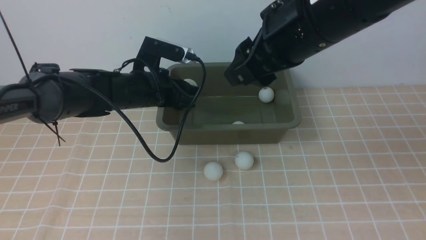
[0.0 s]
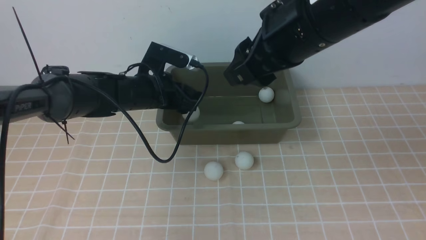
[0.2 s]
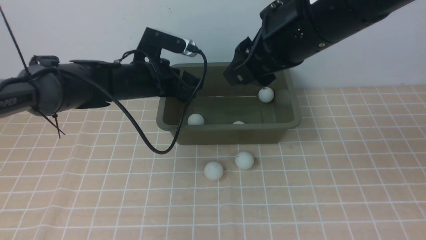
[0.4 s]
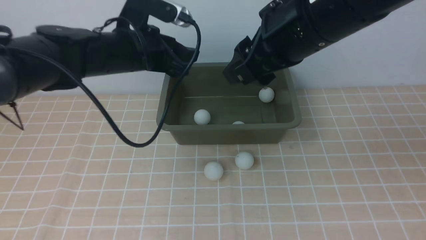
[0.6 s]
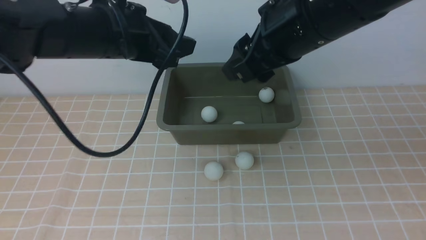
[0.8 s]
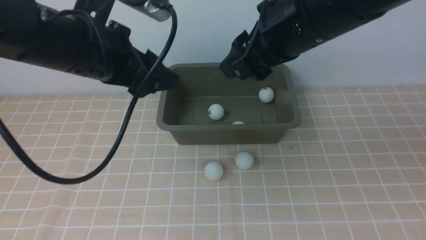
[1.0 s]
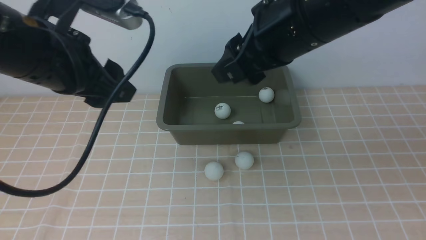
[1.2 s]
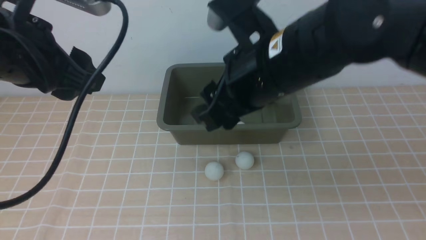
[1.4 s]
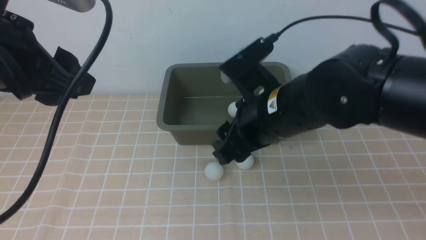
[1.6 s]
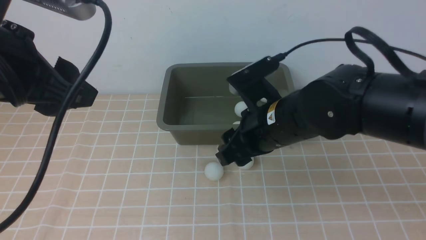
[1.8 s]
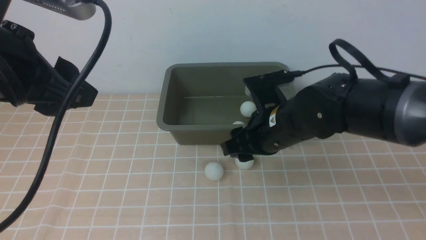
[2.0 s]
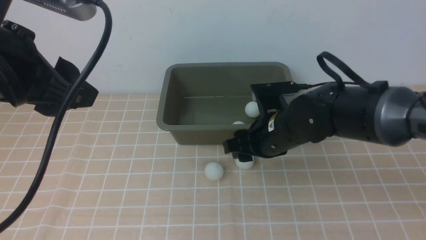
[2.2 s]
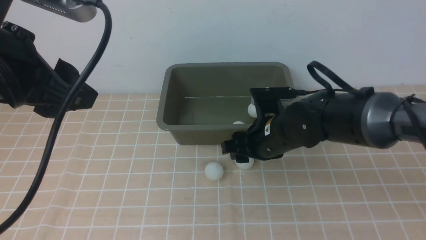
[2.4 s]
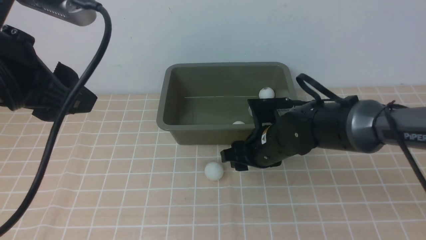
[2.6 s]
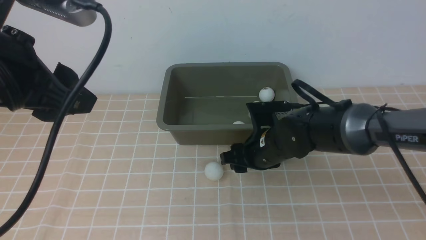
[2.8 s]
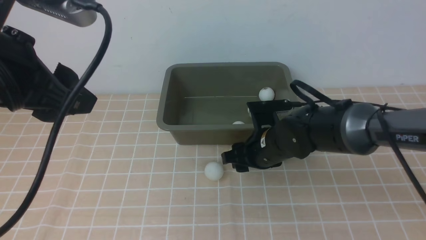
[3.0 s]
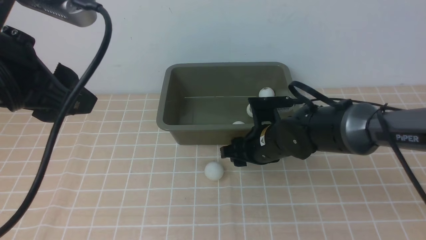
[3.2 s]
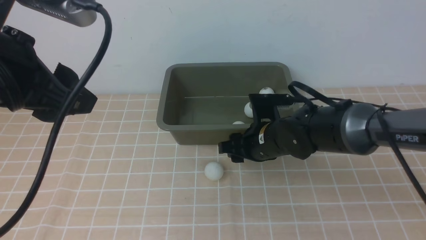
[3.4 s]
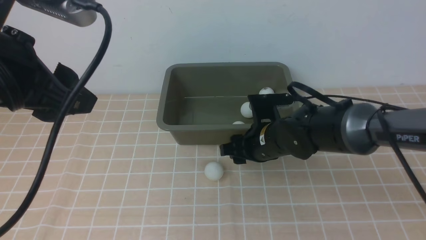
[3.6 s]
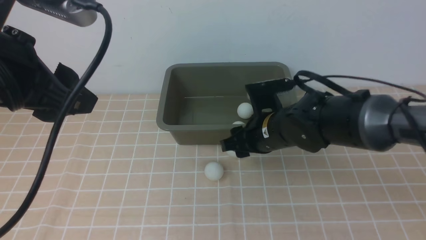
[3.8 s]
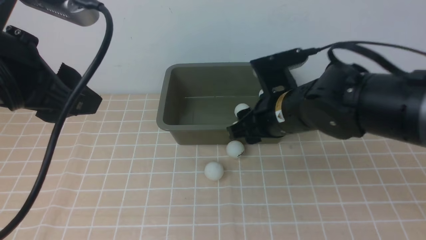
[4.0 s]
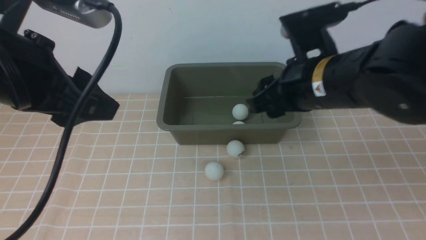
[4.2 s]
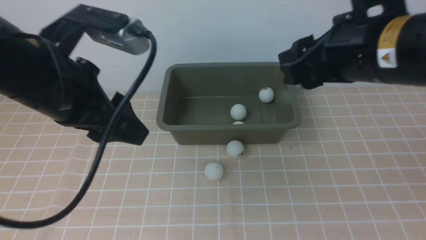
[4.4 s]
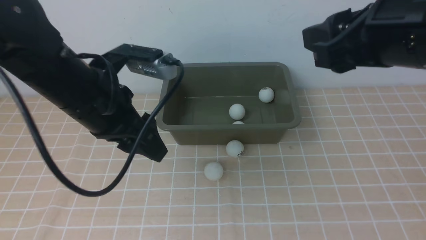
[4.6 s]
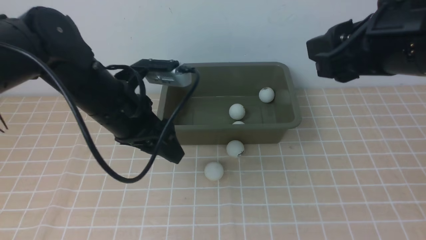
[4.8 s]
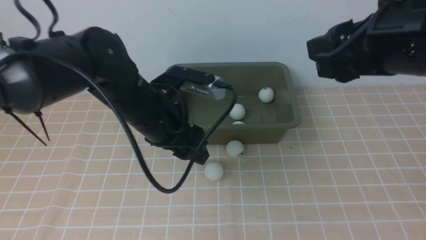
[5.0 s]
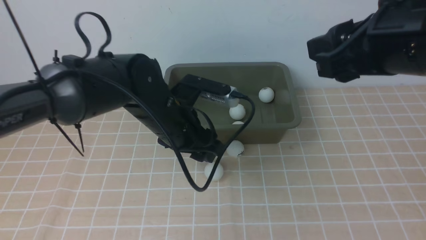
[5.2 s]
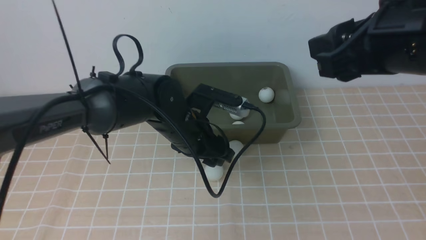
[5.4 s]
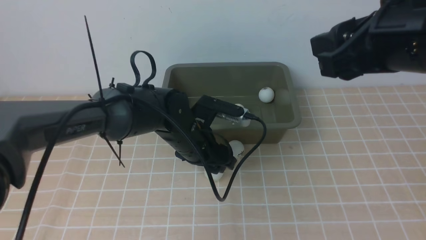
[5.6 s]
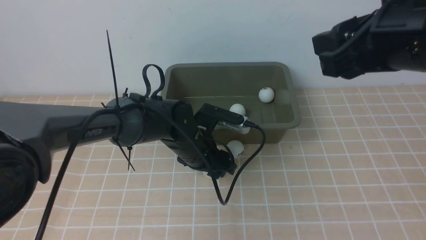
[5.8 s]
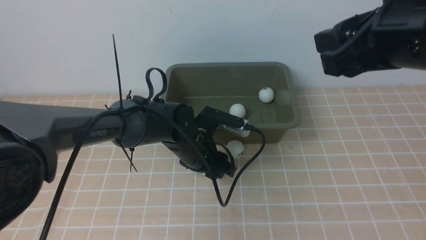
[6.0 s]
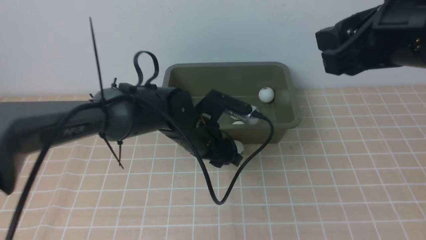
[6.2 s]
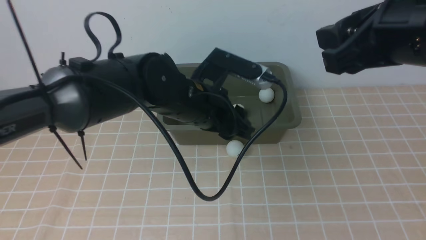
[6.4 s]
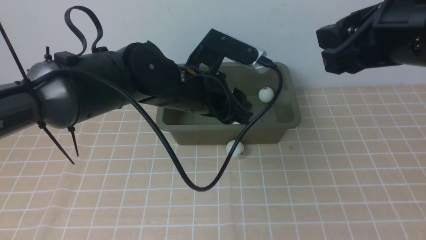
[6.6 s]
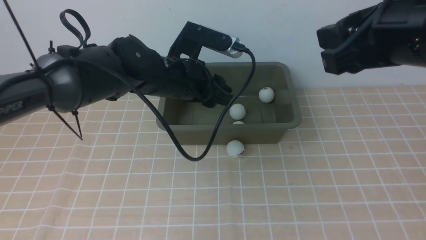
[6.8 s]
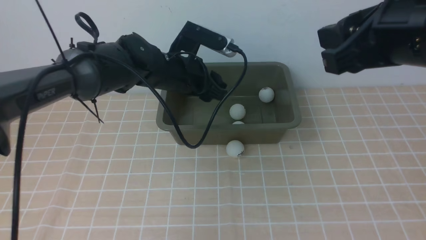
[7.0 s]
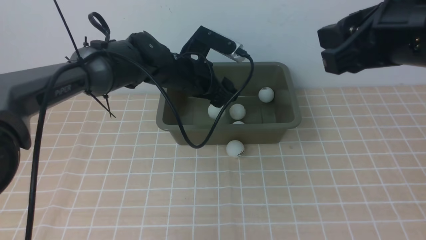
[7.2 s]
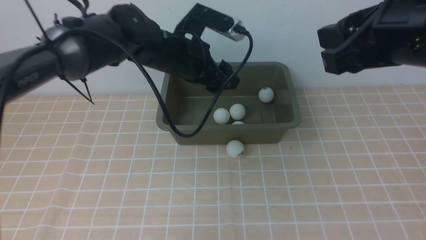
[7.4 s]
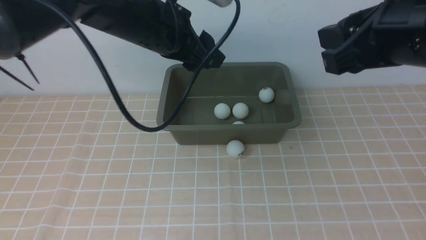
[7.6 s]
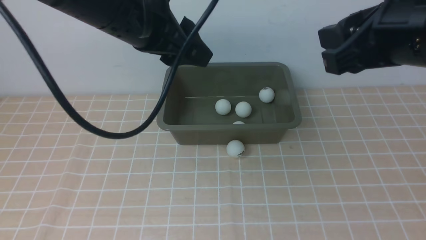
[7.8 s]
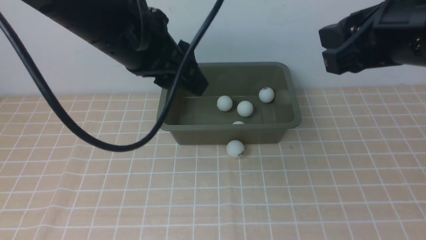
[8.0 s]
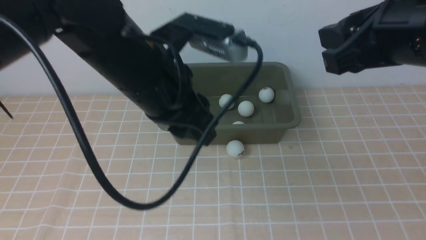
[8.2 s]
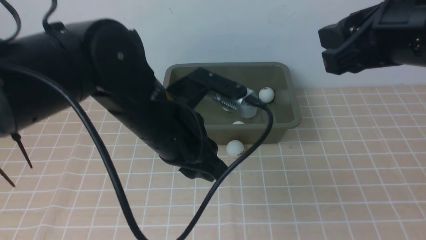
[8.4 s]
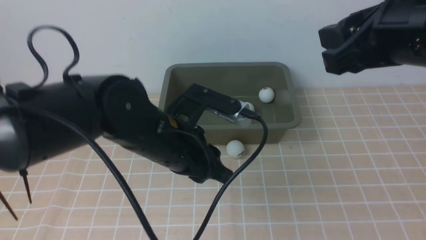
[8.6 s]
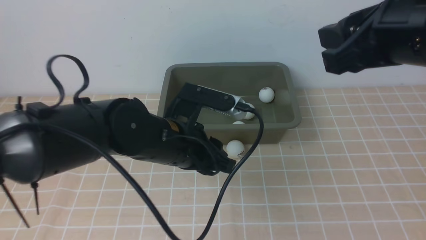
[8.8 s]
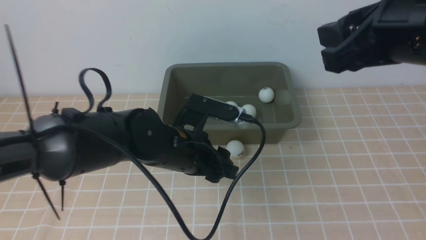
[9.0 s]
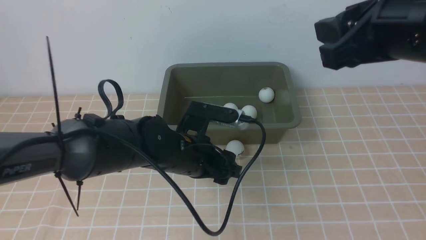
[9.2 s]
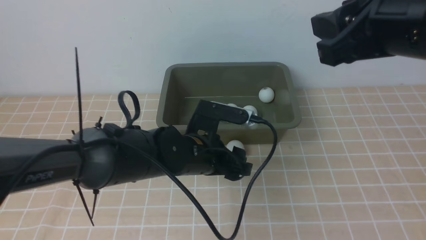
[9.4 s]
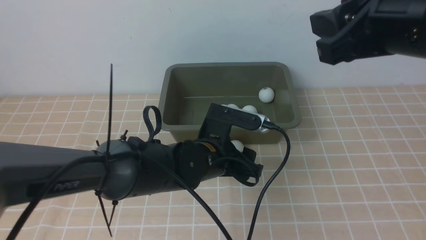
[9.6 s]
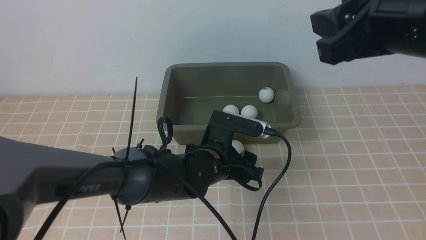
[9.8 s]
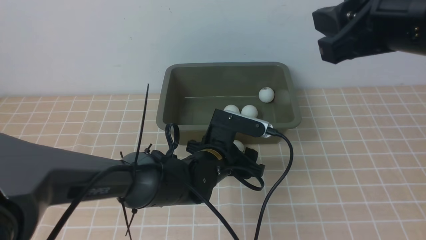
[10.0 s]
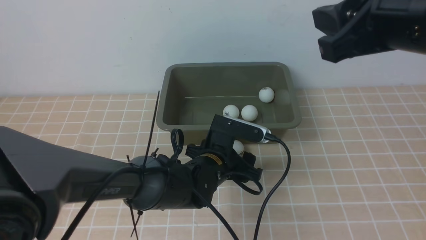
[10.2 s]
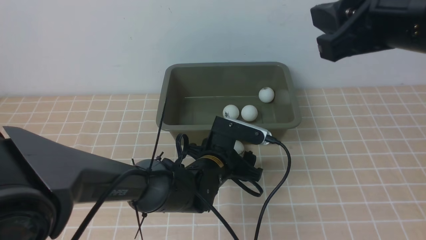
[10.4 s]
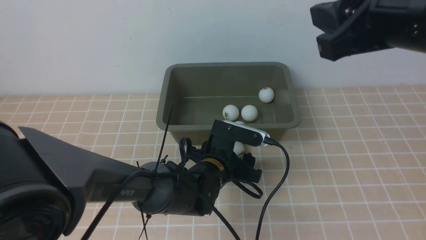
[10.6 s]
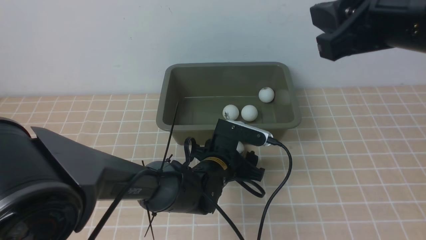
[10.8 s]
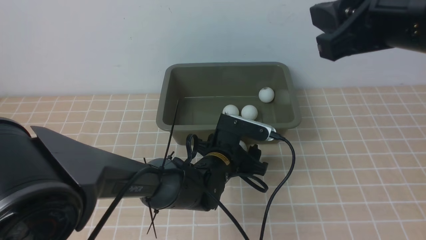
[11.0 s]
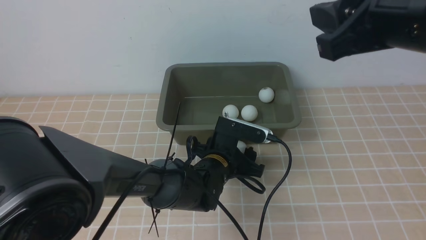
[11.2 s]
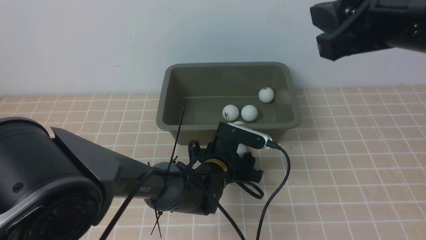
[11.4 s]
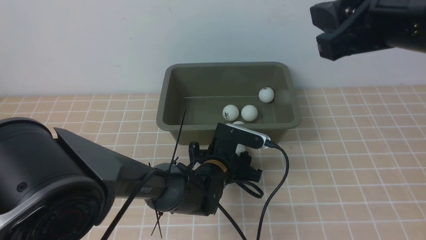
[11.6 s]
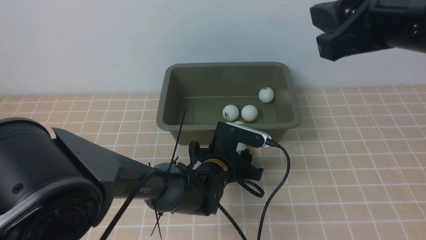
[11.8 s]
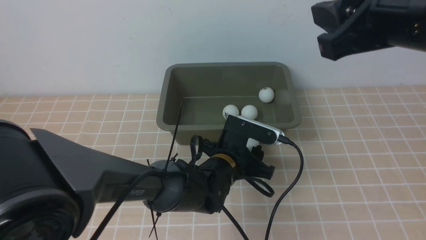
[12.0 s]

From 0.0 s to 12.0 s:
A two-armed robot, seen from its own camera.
Step, from 0.0 s to 0.6 s: use the left arm to put the table tennis ball into the box.
Step, from 0.8 s to 6.0 s: use the left arm to clamp the table tennis ball closest to it.
Step, from 6.4 s to 7.2 s: use the left arm to put the table tennis ball into the box.
From 0.0 s to 1.6 s: The left gripper moves upward and backward, about 25 cm, while the right gripper goes roughly 10 cm downward.
From 1.6 s to 3.0 s: The right gripper shifts some 15 cm downward and forward.
From 3.0 s to 4.4 s: The left gripper changes place by approximately 5 cm. Meanwhile the right gripper shifts about 25 cm upward and backward.
From 4.4 s to 6.0 s: The left gripper goes approximately 25 cm downward, to the right and forward.
From 6.0 s to 7.6 s: The left gripper is displaced upward by approximately 20 cm.
From 7.6 s to 9.0 s: The left gripper is displaced downward and backward by approximately 15 cm, and closes and opens again.
From 9.0 s to 10.4 s: The left gripper heads downward, covering some 10 cm, and opens its fingers.
From 10.4 s to 12.0 s: The left gripper closes.

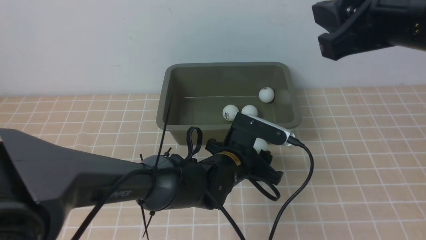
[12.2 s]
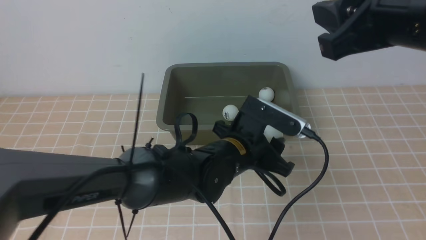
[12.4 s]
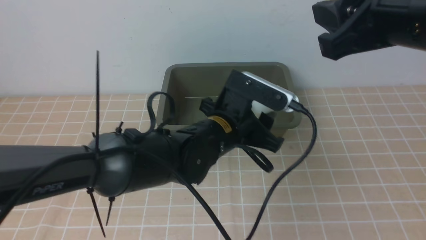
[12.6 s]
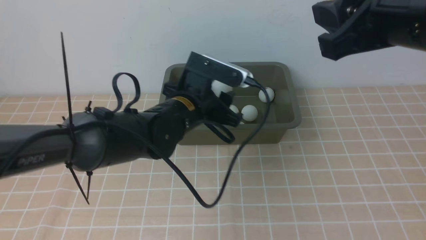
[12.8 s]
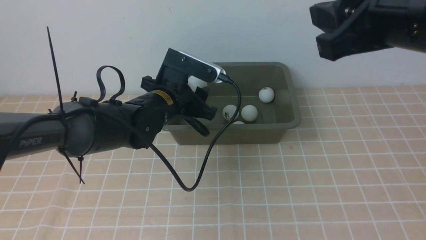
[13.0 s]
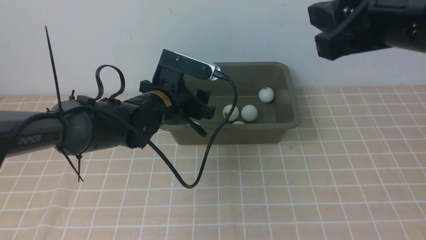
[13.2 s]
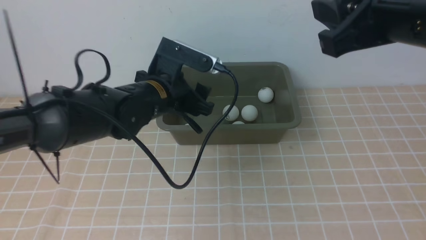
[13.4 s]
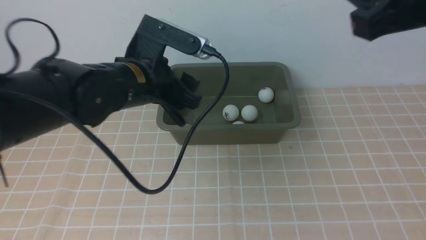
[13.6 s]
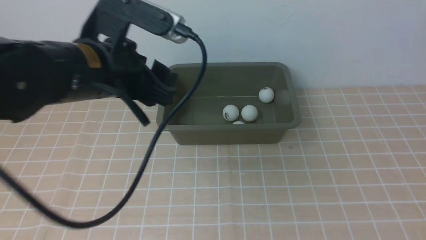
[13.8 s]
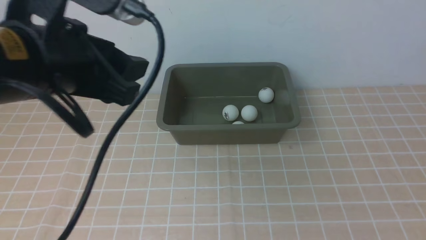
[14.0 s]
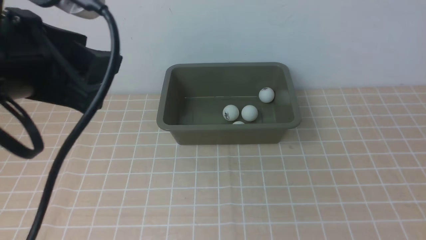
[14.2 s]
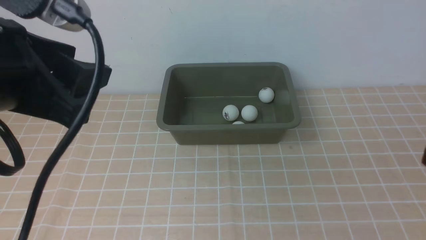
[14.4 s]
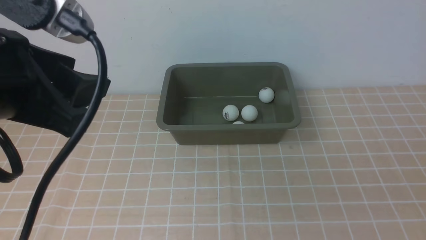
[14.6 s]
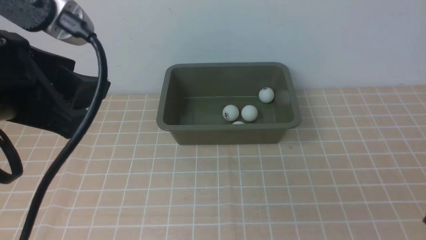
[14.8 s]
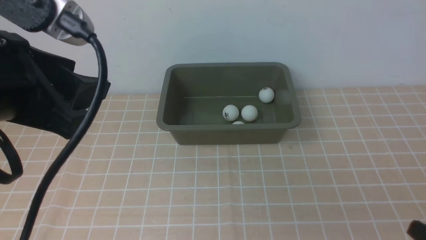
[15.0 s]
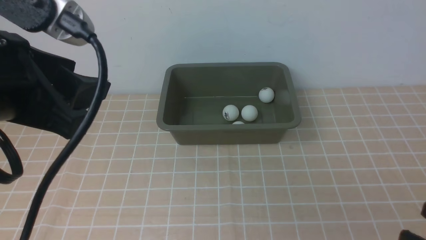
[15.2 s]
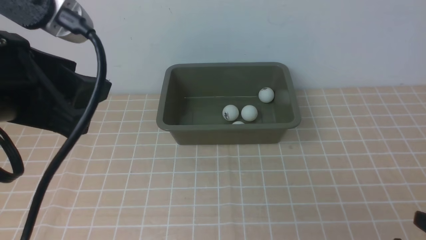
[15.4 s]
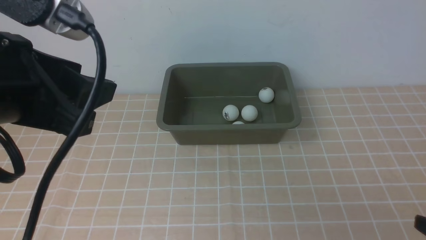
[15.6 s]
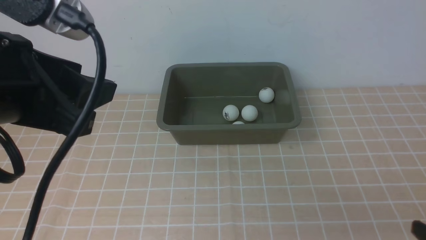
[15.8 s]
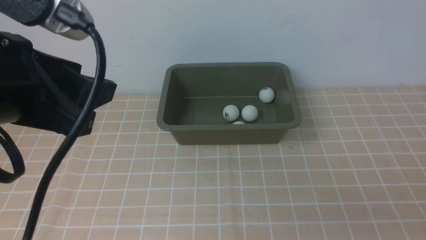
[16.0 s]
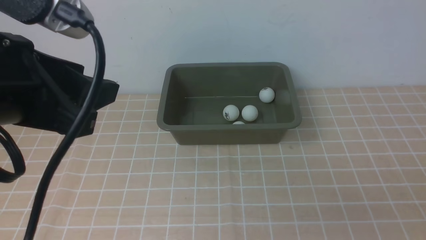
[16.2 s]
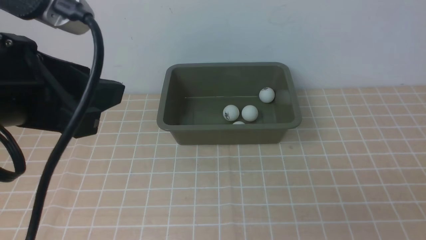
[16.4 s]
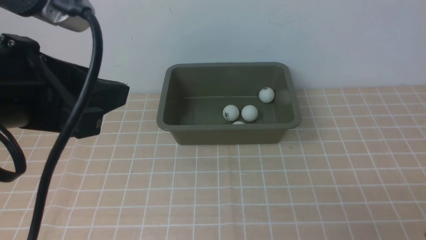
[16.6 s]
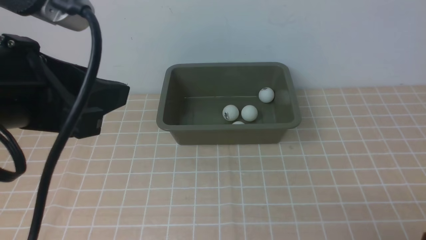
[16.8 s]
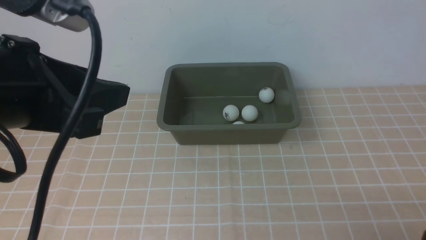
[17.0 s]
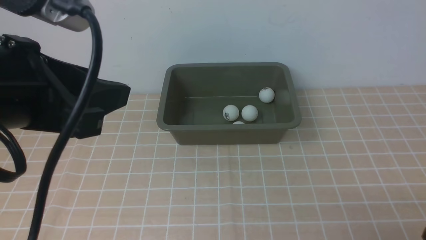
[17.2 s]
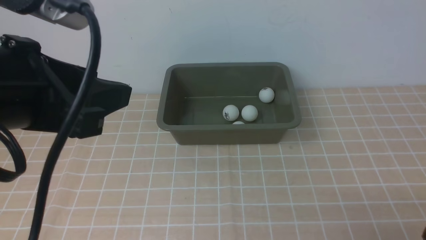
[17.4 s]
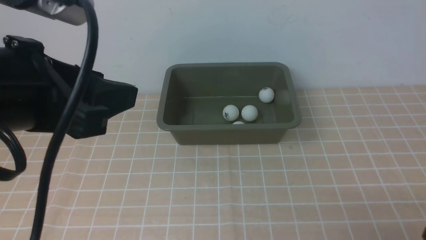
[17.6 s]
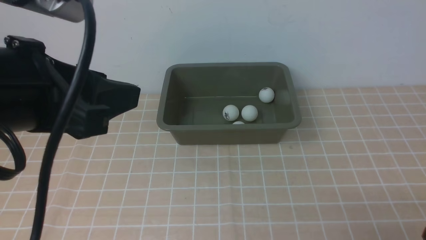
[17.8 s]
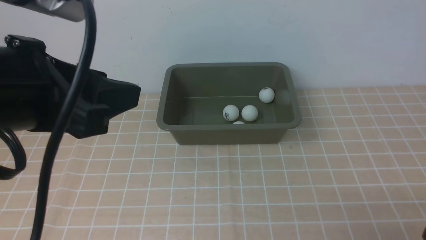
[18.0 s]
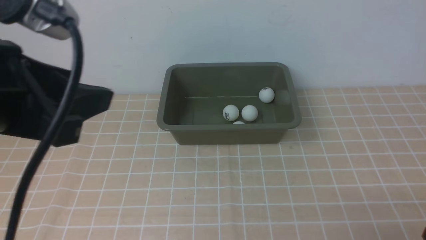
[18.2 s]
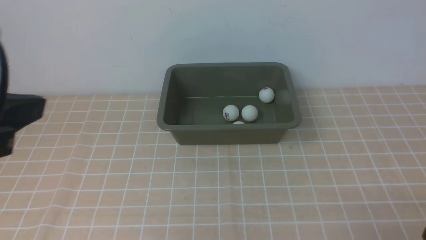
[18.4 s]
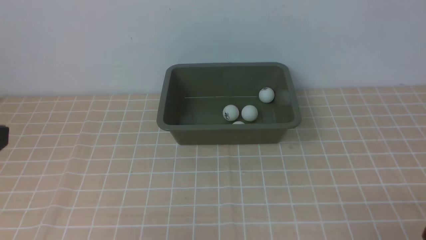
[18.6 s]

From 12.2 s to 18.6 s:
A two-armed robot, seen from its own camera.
Step, from 12.4 s to 13.6 s: use the left arm to put the table tennis ball into the box.
From 12.2 s to 13.8 s: The left gripper is displaced upward and to the left by roughly 25 cm, and opens its fingers; the right gripper travels backward, to the right and upward by roughly 10 cm.
From 13.8 s to 15.4 s: The left gripper shifts some 10 cm backward and upward, while the right gripper goes roughly 25 cm downward and backward.
From 17.0 s to 18.6 s: The left gripper goes about 10 cm to the left, backward and downward.
